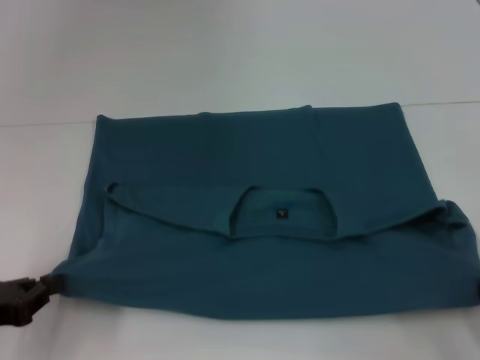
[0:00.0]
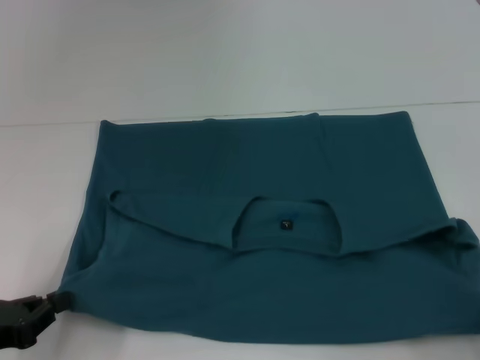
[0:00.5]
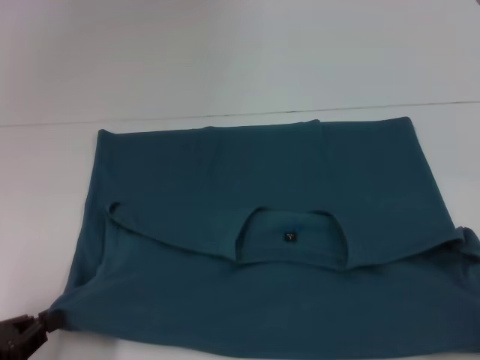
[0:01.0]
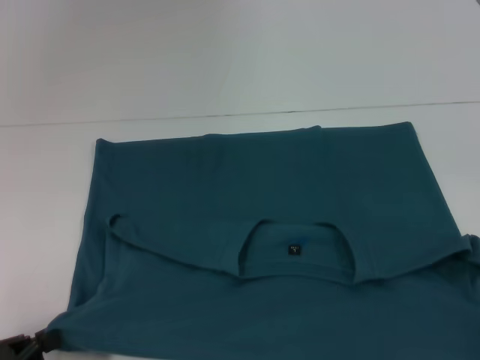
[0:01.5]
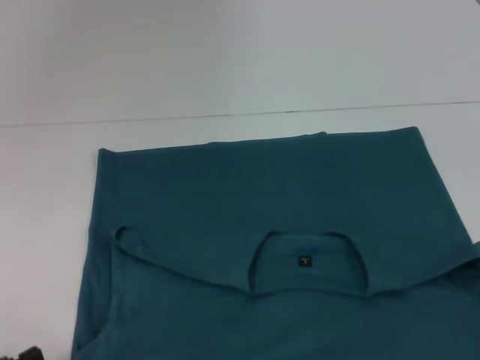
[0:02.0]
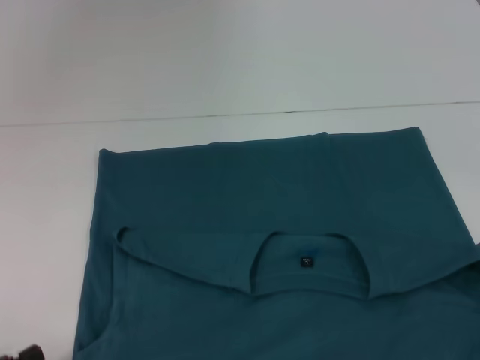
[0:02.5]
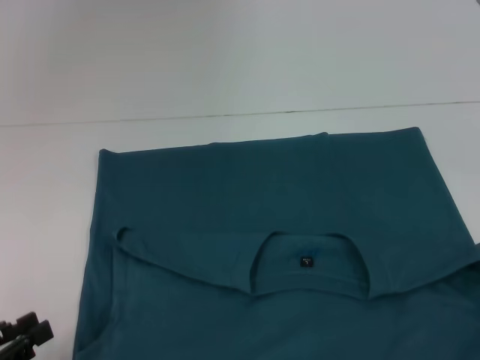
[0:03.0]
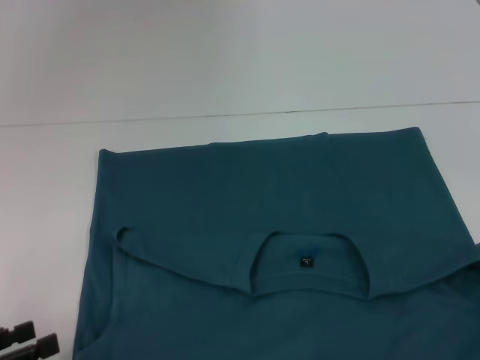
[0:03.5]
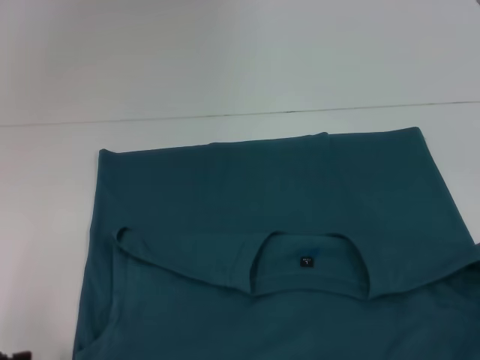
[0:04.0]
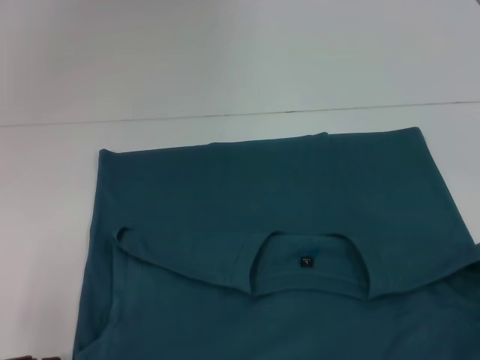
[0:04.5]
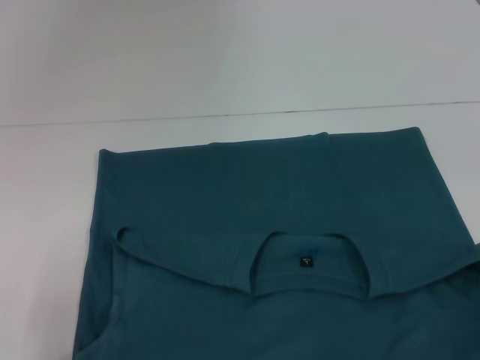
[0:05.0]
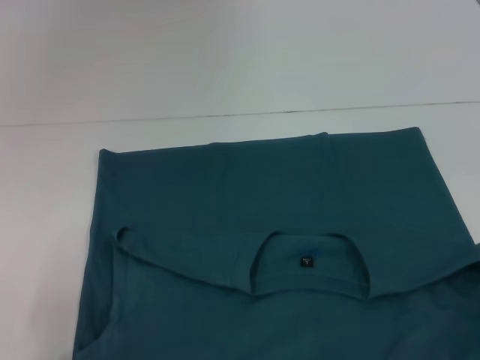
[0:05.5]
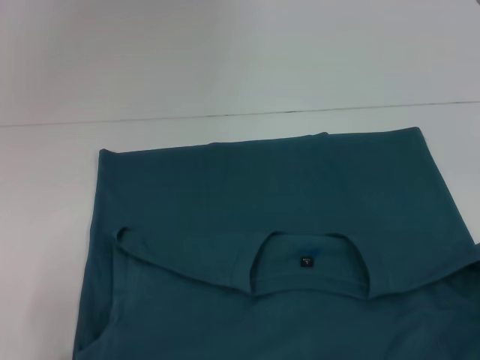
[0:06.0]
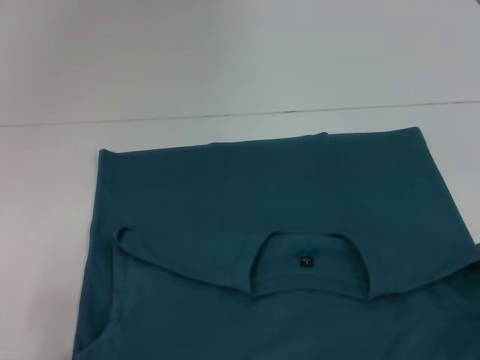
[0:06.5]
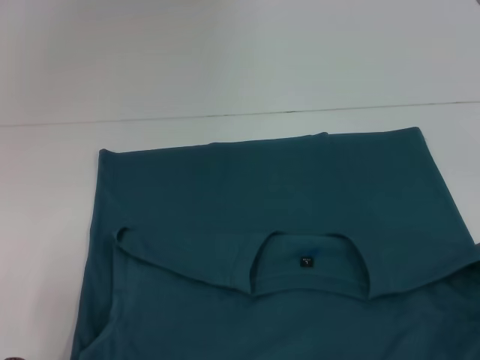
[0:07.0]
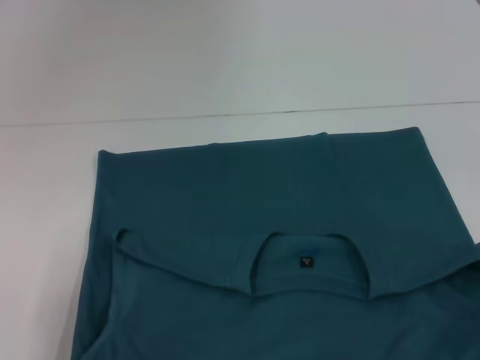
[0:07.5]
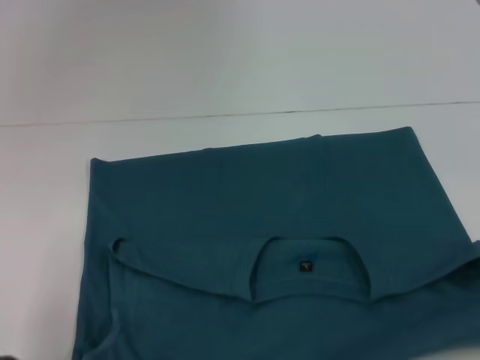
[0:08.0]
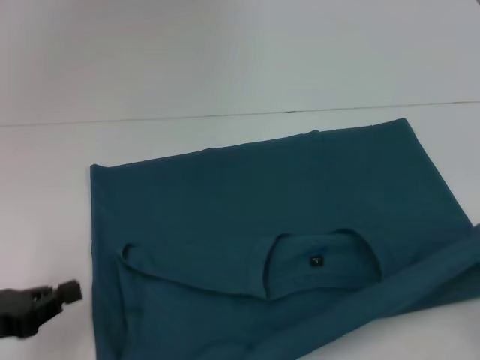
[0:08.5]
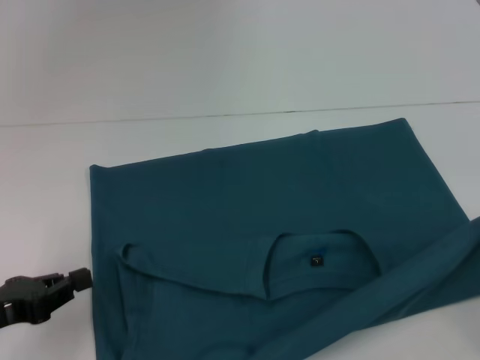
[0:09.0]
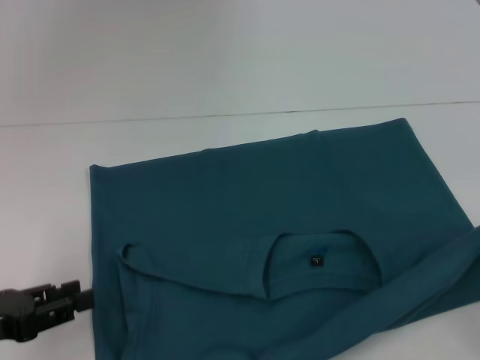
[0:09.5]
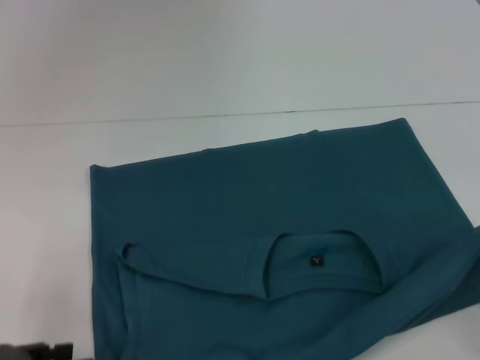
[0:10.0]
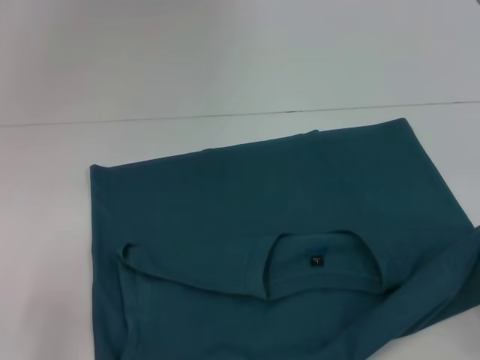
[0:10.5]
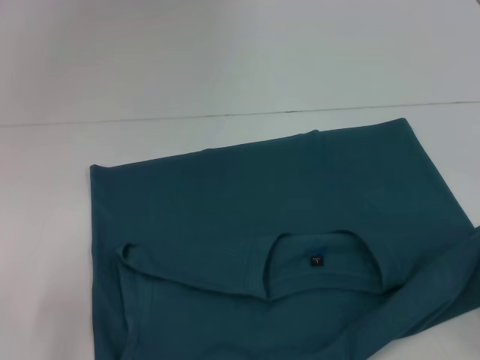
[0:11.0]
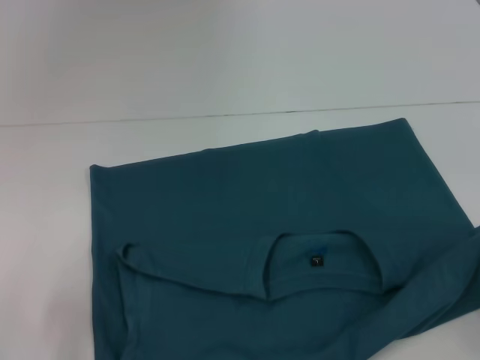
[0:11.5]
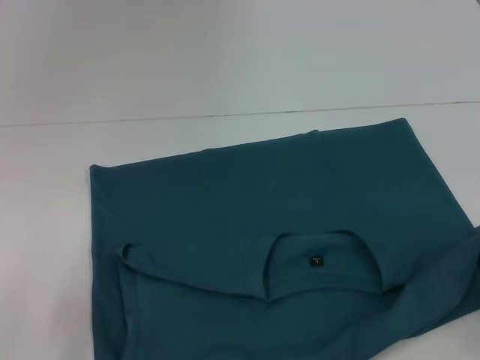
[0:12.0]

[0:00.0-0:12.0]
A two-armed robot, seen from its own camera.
Step, 0:00.0 to 0:03.5: Pull the clothes with your left hand.
Step, 0:00.0 to 0:03.5: Pull the clothes with your right hand.
0:00.0 to 0:02.0: Both grippers travel together backward, roughly 10 cm.
0:02.0 to 0:04.0: The left gripper changes place by about 5 cm, and opens its fingers.
0:06.0 to 0:08.0: The left gripper closes its fingers.
0:08.0 to 0:10.0: The right gripper goes some 5 cm forward; the left gripper opens up.
0:10.0 to 0:12.0: The grippers move only a little.

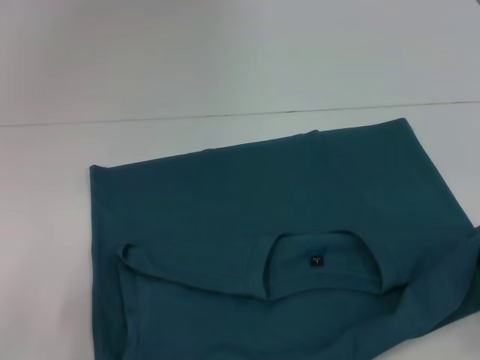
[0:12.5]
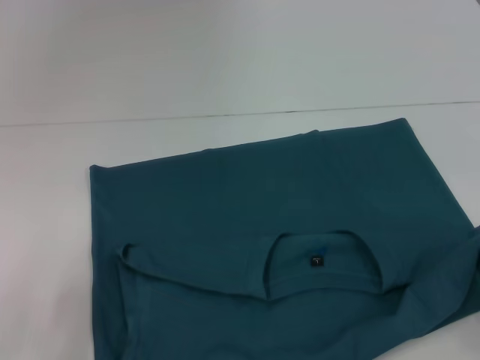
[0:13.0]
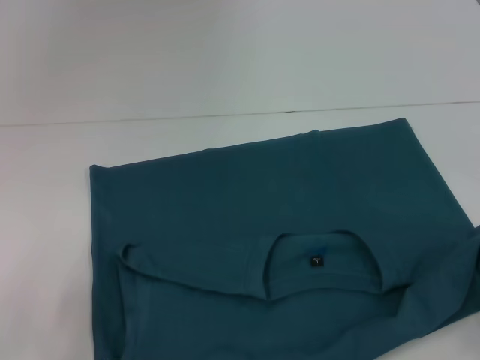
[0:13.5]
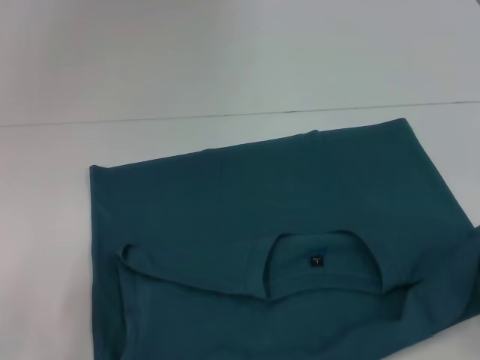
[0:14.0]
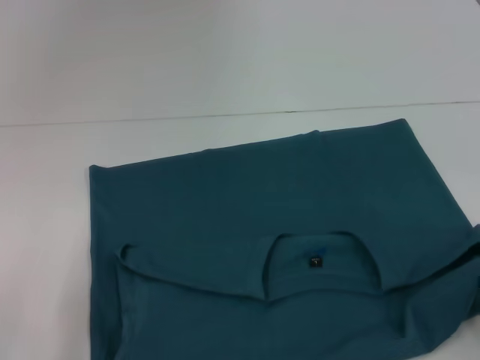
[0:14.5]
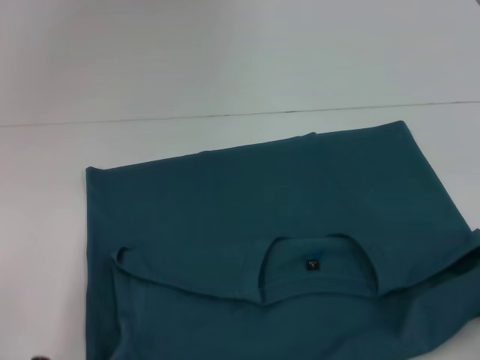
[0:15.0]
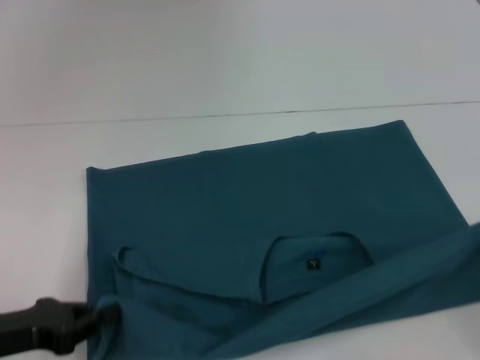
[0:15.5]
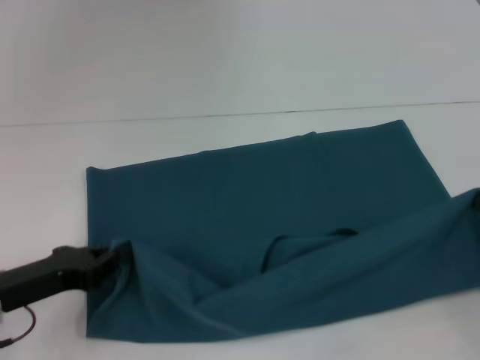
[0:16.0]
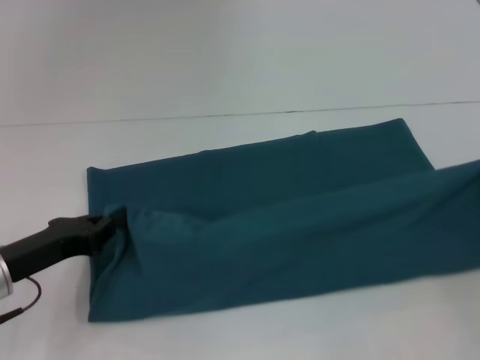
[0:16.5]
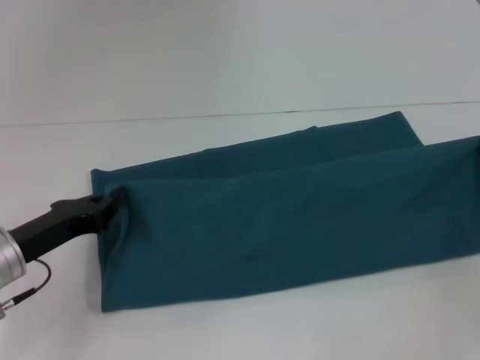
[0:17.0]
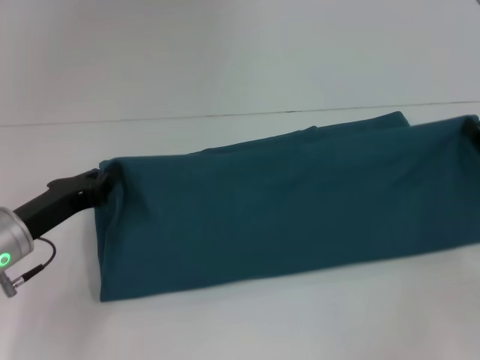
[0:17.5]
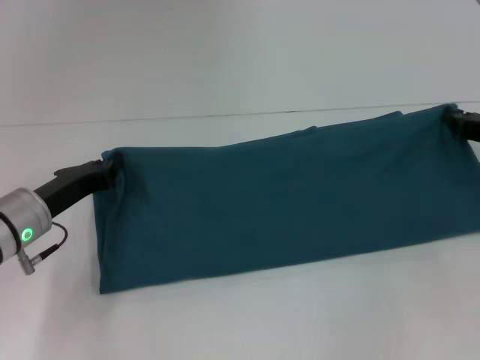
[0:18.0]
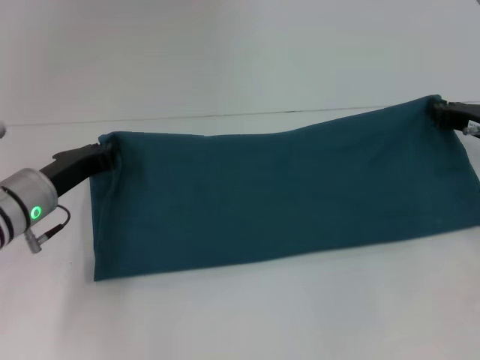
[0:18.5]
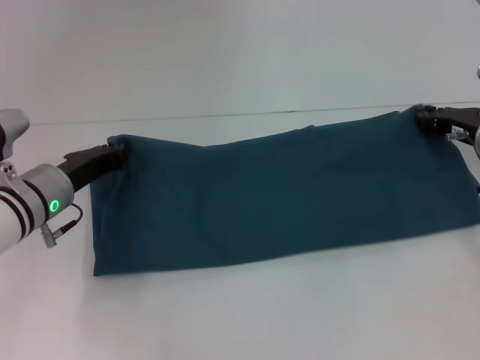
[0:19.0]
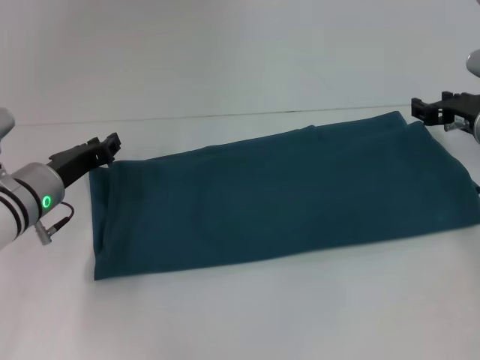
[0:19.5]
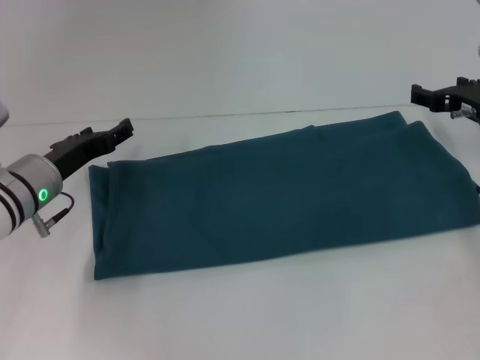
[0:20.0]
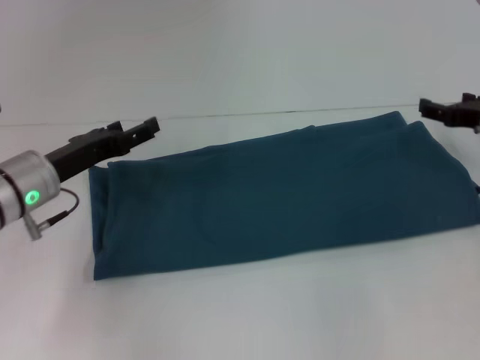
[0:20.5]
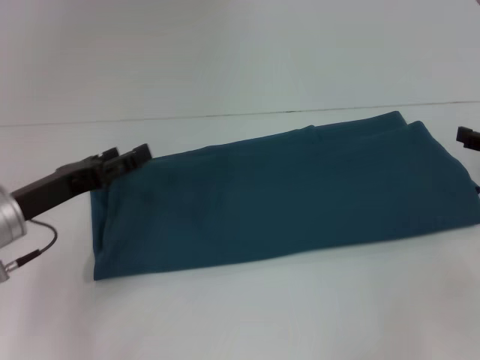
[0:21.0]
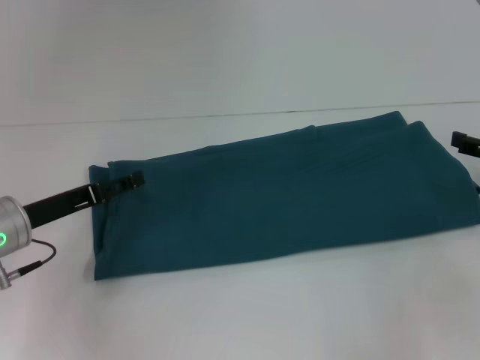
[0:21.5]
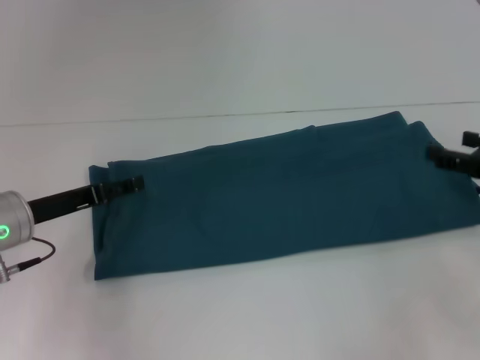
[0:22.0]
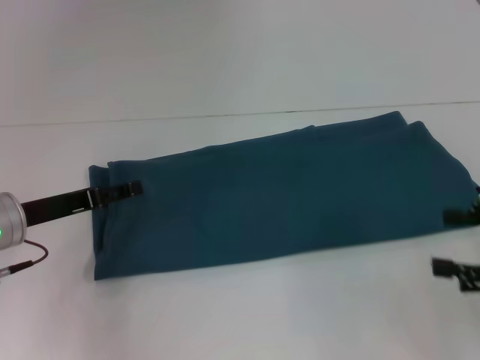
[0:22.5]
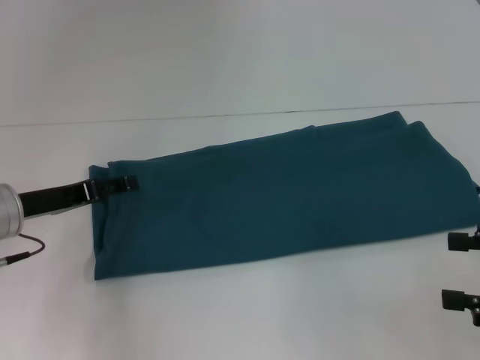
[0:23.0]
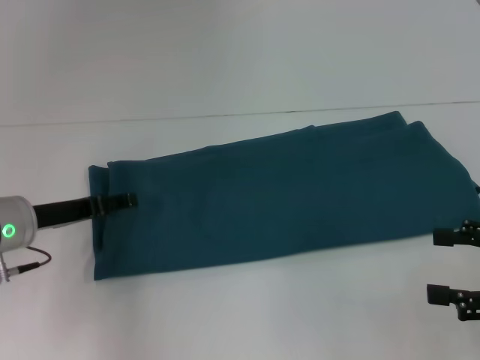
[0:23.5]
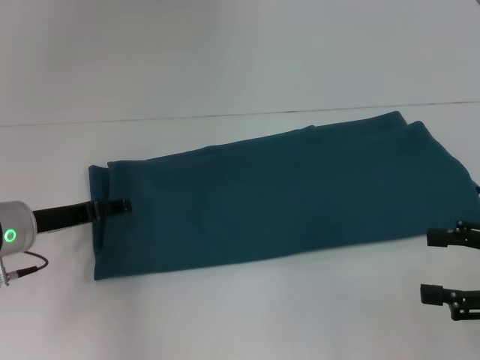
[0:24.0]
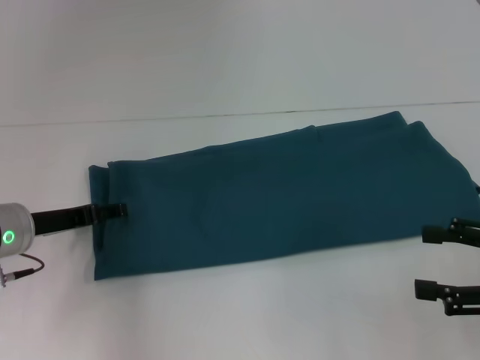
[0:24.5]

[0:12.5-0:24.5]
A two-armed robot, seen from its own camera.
Step, 0:12.5 to 0:20.0: Fold the clothes to the right.
0:14.5 to 0:16.5: Both grippers travel together forward, roughly 10 cm.
0:16.5 to 0:18.5: The right gripper moves forward and to the left, roughly 15 cm; the left gripper heads forward, covering about 10 cm.
0:18.5 to 0:20.5: The right gripper opens its fingers; the left gripper opens its fingers.
0:20.5 to 0:22.5: The right gripper goes roughly 15 cm backward.
0:22.5 to 0:24.5: There are only small adjustments of the grippers.

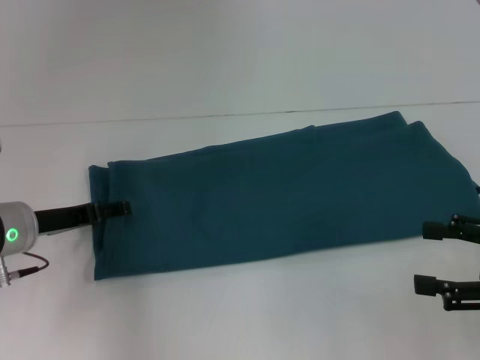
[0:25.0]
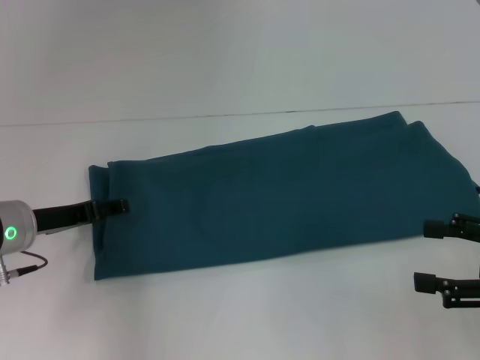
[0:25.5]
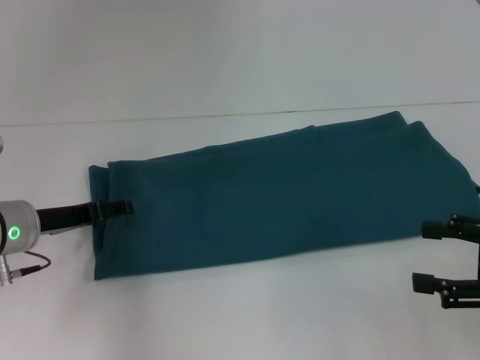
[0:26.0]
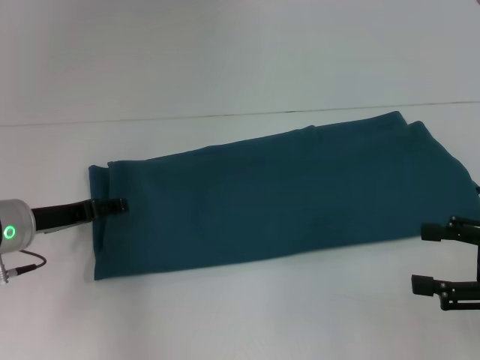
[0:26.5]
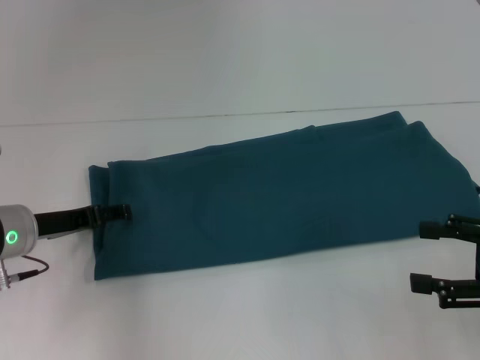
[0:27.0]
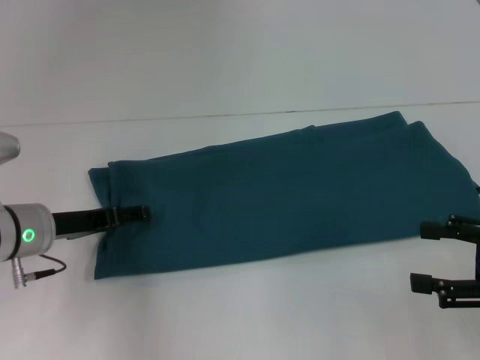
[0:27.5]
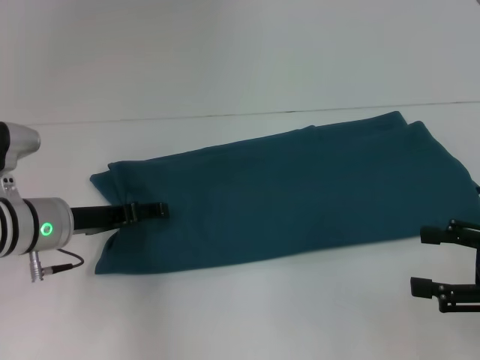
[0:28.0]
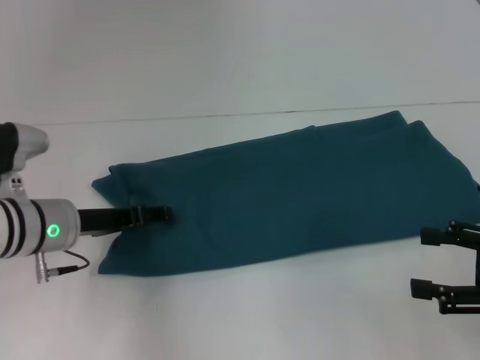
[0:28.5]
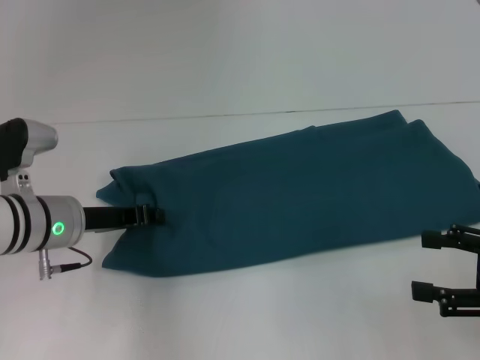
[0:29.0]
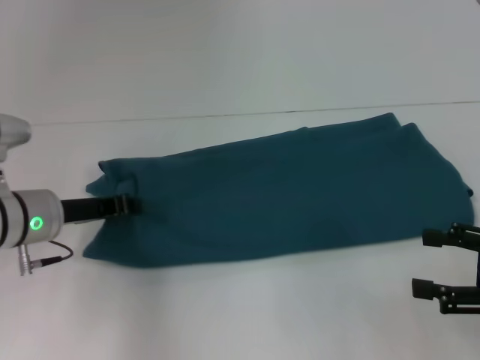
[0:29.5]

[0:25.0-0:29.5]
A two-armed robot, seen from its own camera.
0:25.0 to 0:27.0: Both grippers stay about where they are.
0:27.0 to 0:29.5: The left gripper closes up.
